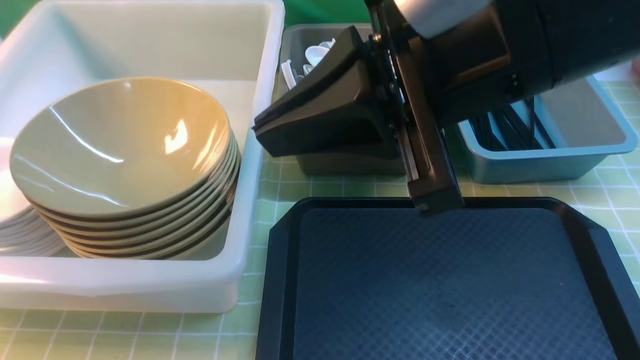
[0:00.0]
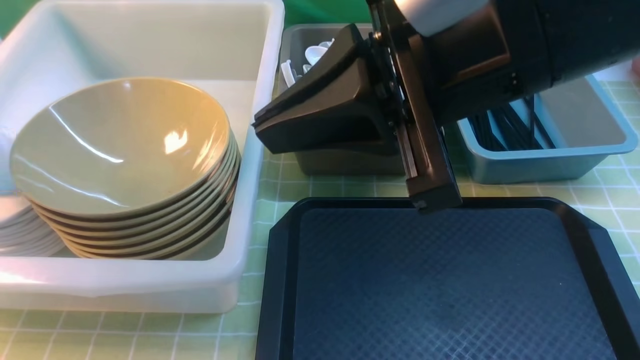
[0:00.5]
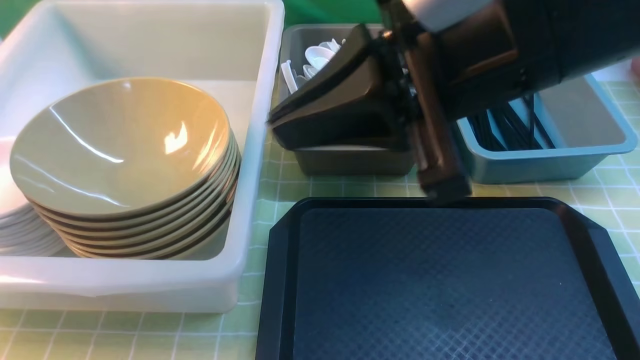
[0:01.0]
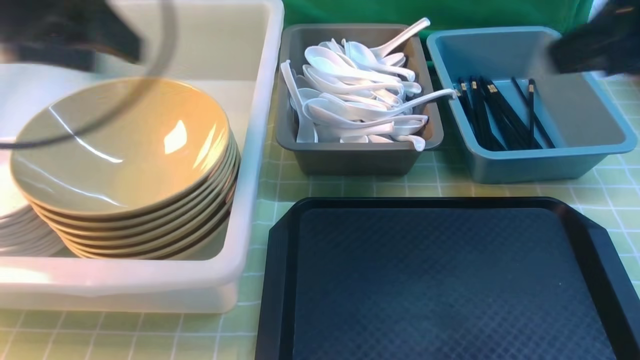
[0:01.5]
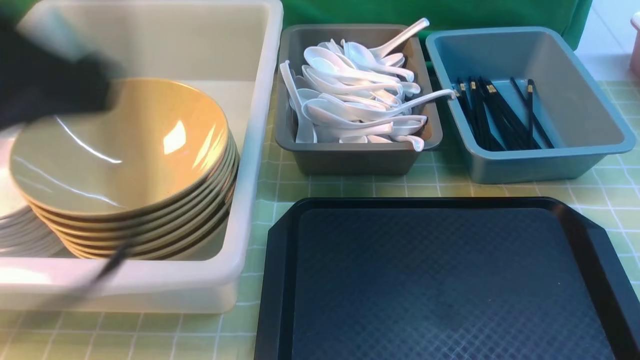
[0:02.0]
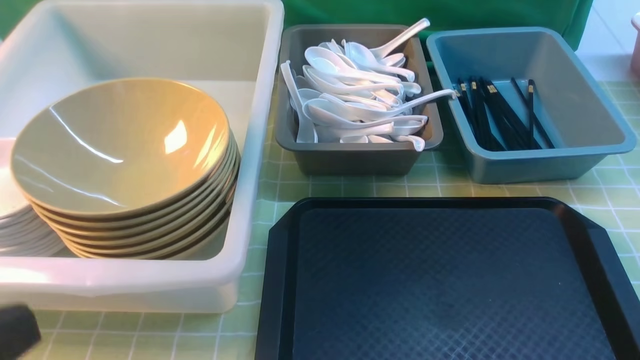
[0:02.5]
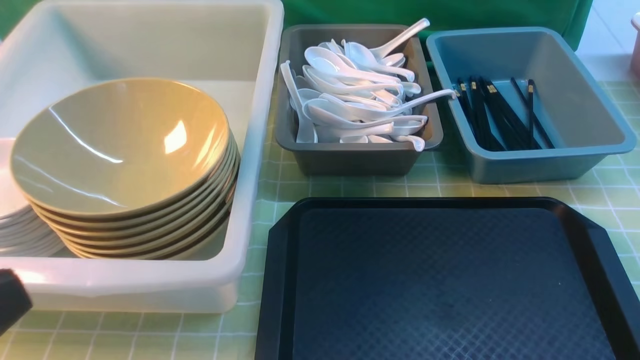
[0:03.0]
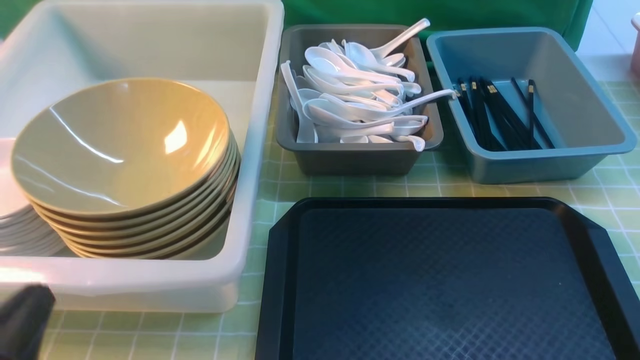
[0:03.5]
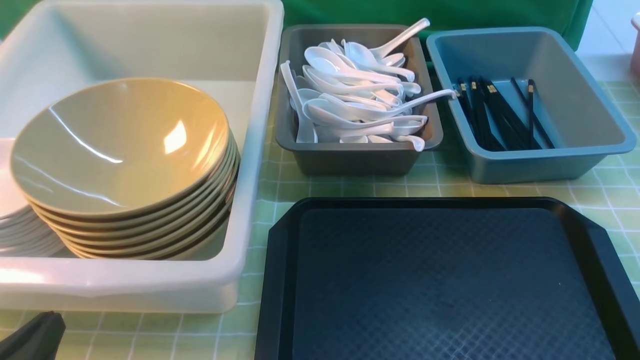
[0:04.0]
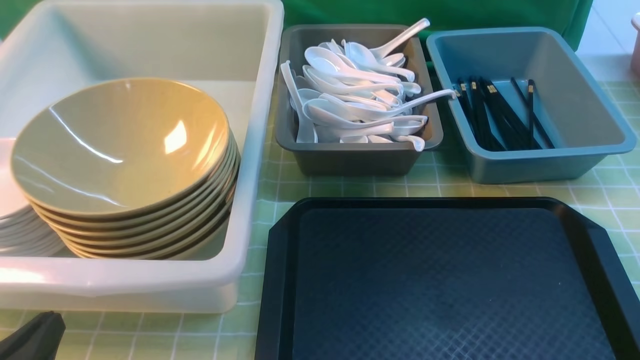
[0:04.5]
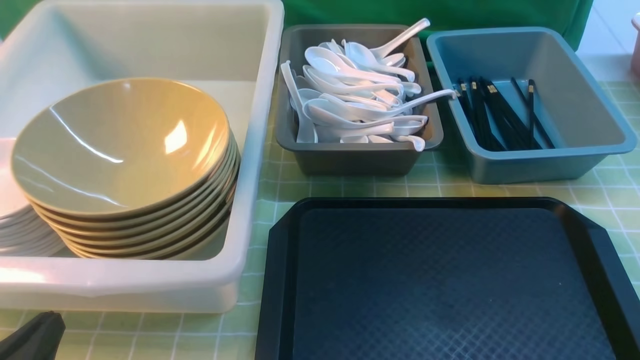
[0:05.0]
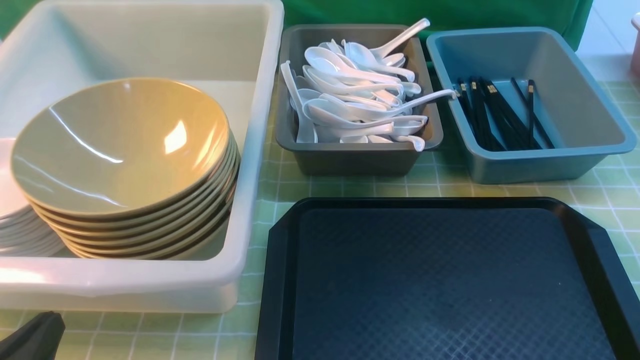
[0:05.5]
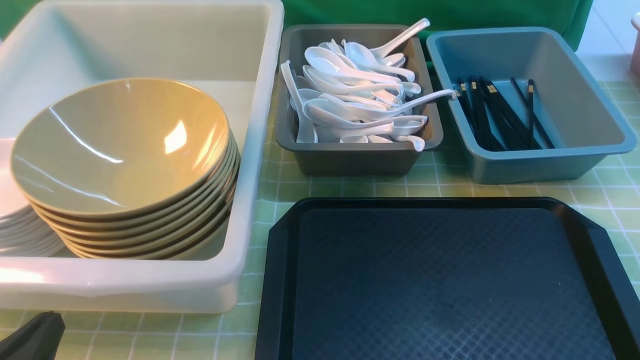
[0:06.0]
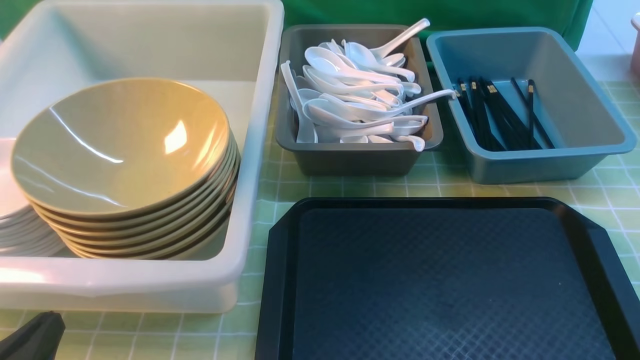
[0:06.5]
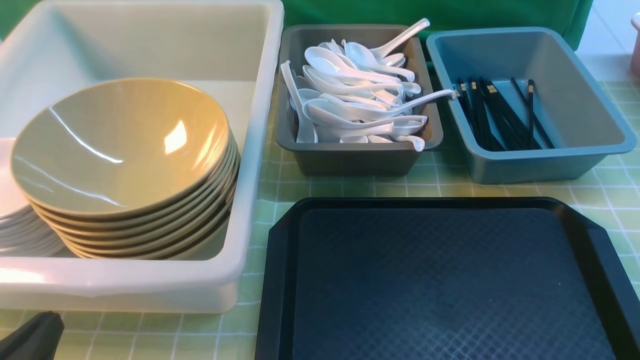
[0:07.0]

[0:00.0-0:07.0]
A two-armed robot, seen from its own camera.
Task of the whole recording: on green table put chopsticks spoon bowls plates into blue grey white boxes.
Step, 0:00.0 to 0:01.0: use the left arm to put the plate into the large storage box on the left.
0:00.0 to 0:02.0: The right gripper heads to the right, backward and downward, covering some 25 cm. Meanwhile the left gripper travels to the right and backward by about 25 cm, and opens, then closes again.
0:02.0 to 0:03.5: The left gripper shifts about 25 cm downward. Meanwhile the right gripper moves downward, some 10 cm.
0:03.5 to 0:05.0: The grippers move only a little.
